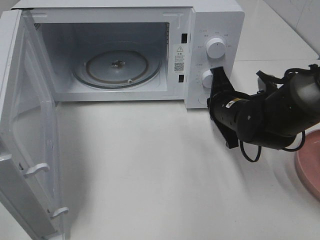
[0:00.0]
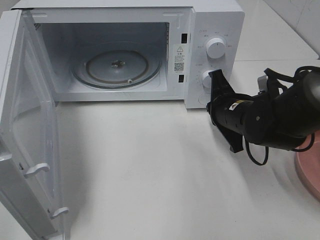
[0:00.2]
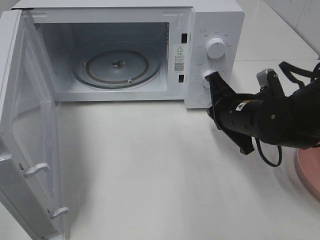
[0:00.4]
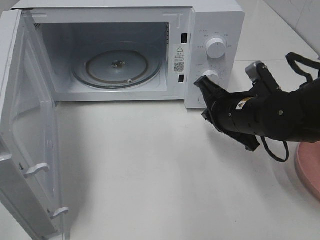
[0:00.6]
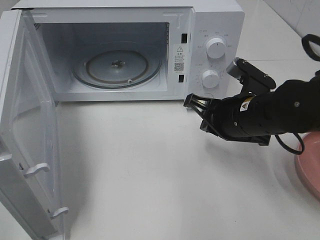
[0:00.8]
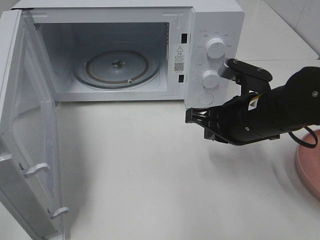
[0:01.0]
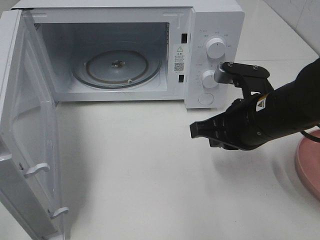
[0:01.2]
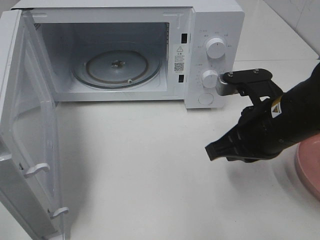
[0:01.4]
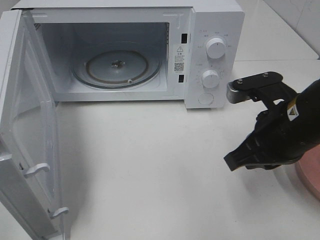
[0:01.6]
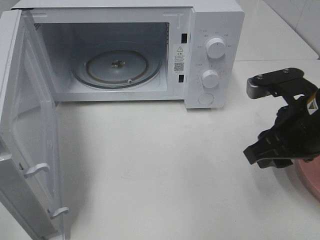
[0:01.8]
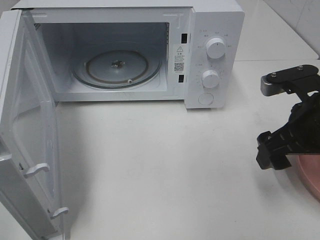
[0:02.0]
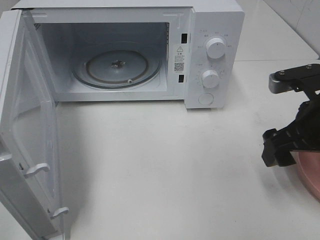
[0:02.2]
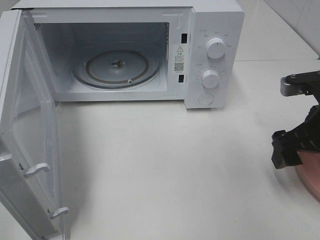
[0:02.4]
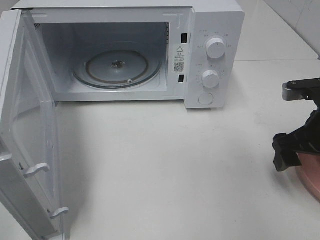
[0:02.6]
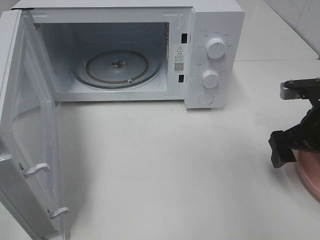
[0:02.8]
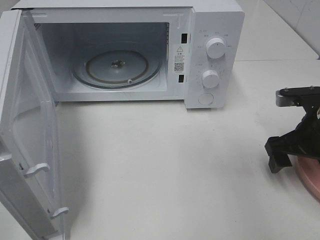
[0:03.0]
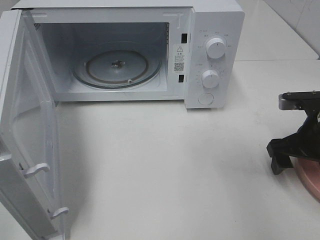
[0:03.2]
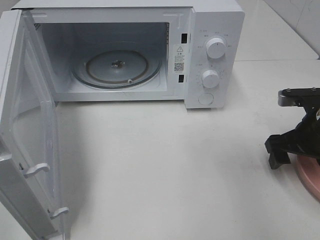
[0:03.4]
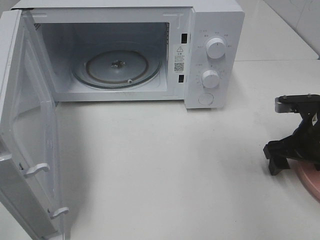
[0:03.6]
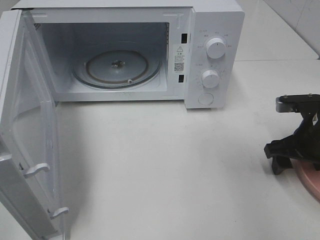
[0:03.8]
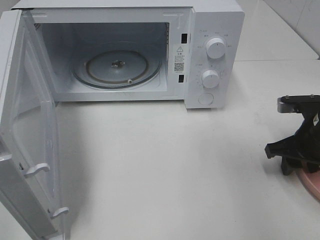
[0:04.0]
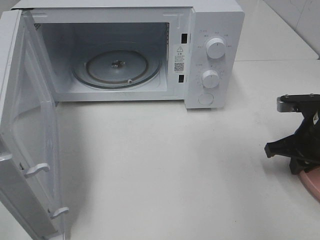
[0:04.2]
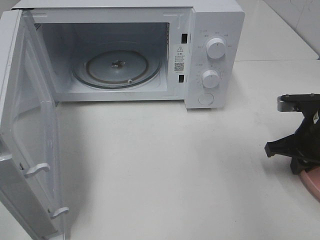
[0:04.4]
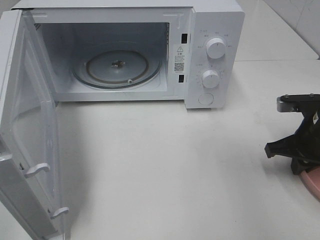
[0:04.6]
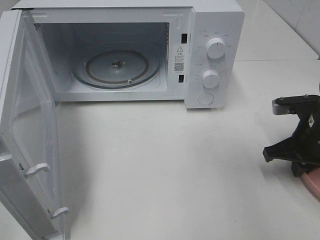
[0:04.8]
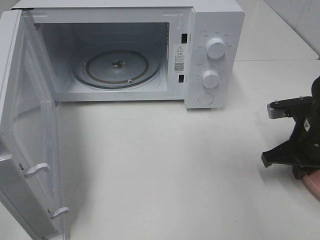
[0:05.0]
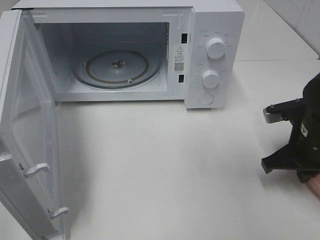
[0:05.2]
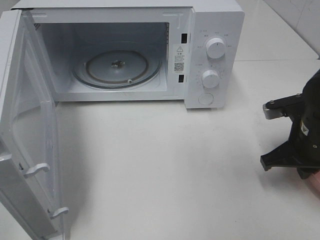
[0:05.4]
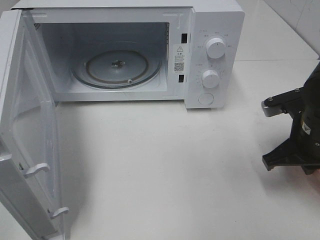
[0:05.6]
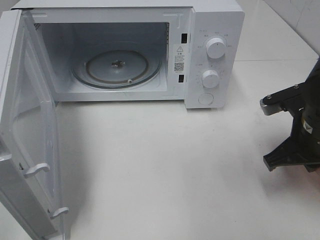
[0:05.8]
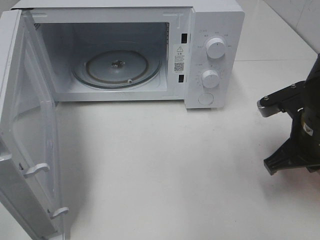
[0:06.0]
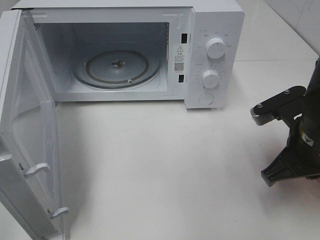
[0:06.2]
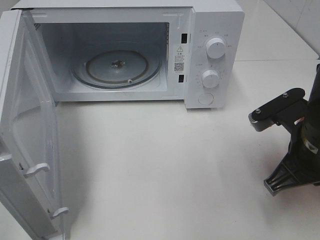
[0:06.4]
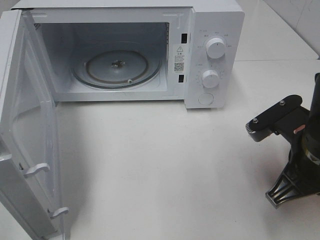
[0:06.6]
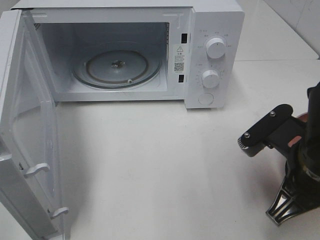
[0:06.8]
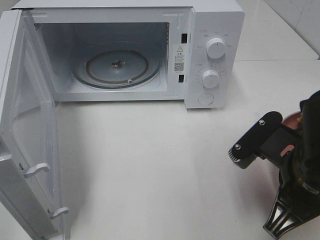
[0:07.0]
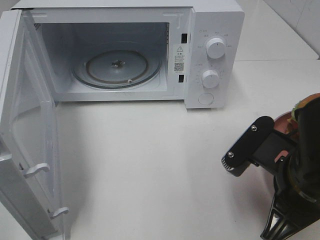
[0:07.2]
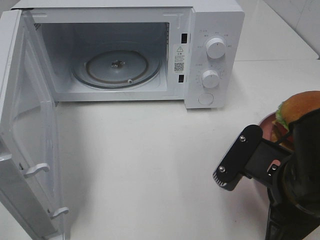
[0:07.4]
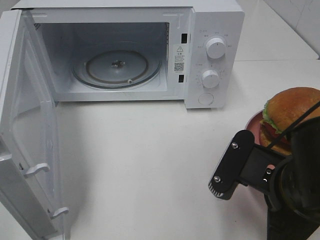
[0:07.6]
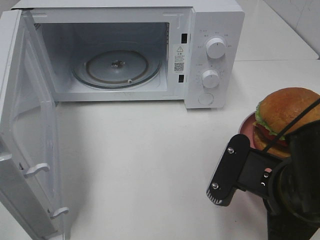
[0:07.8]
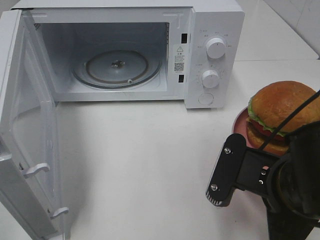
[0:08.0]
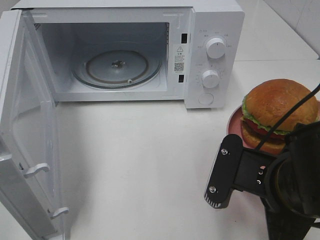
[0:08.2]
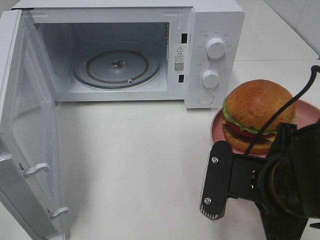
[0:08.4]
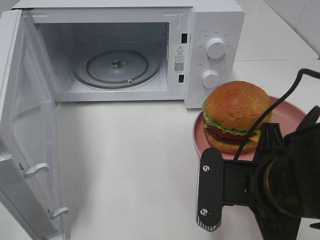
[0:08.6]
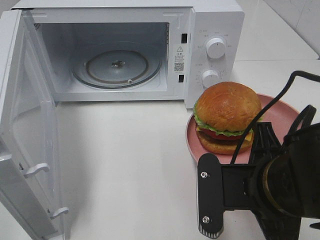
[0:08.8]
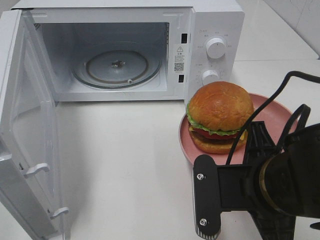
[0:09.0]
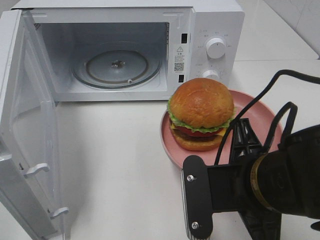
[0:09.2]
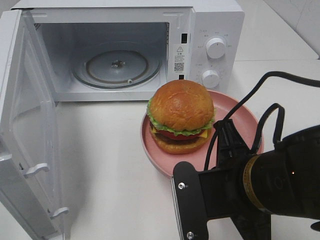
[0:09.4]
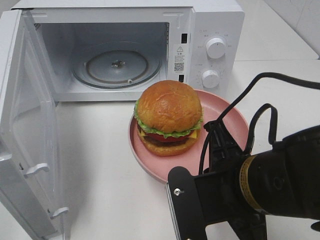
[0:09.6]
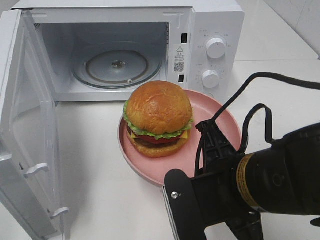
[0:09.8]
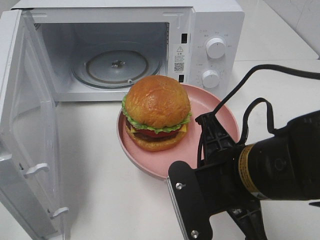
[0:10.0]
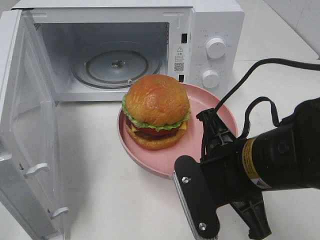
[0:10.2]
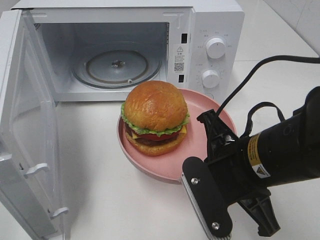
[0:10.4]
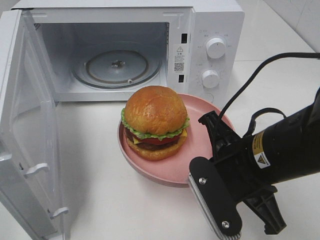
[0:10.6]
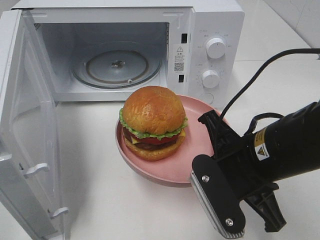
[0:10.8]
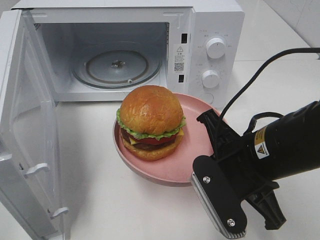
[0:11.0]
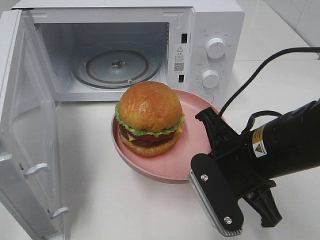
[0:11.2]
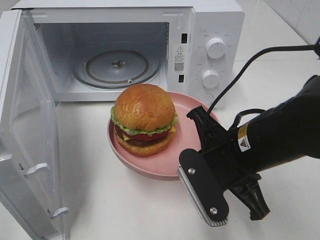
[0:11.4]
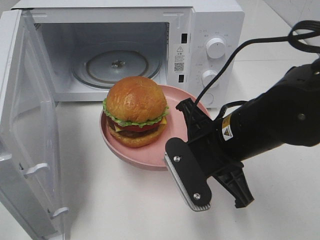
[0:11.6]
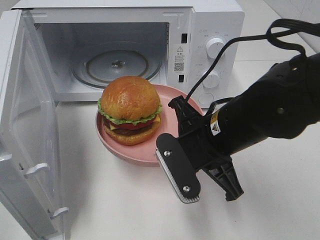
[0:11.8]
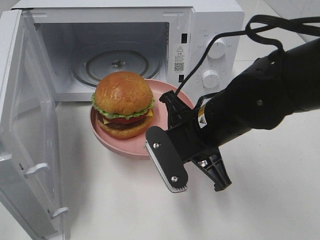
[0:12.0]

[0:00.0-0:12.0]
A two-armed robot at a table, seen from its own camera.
Task of the whole recording: Heat the burger.
Step, 0:00.0 to 0:04.4: Right hand: grab the plate with the hamburger.
0:00.0 to 0:01.6: The right gripper travels backward and upward by about 15 cm.
0:01.6 to 0:03.0: The right gripper travels to the right and downward by about 10 cm, and opens its fingers.
0:03.0 to 0:04.4: The right gripper closes.
0:04.4 to 0:06.0: The right gripper heads to the left, covering approximately 5 cm.
0:06.0 to 0:07.6: The right gripper is displaced backward and to the left by approximately 15 cm.
0:10.4 to 0:12.0: The right gripper moves forward, approximately 5 cm.

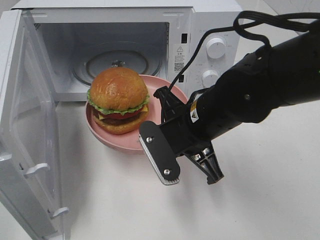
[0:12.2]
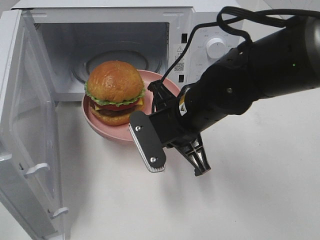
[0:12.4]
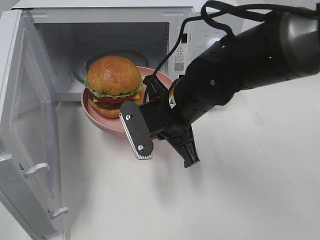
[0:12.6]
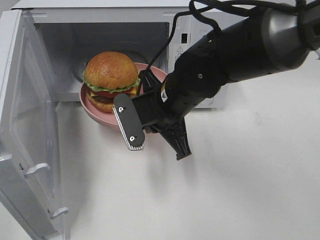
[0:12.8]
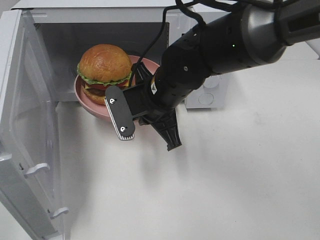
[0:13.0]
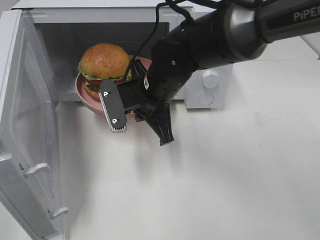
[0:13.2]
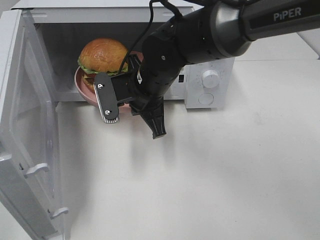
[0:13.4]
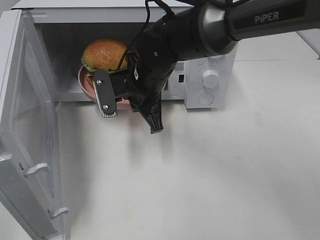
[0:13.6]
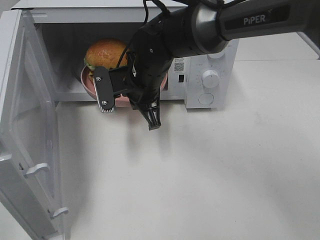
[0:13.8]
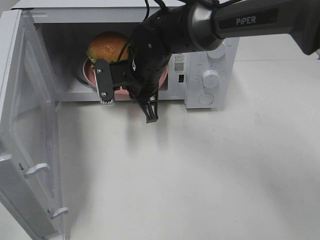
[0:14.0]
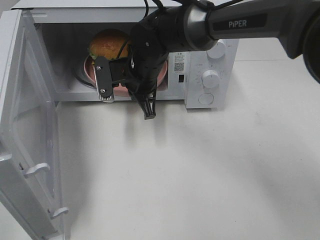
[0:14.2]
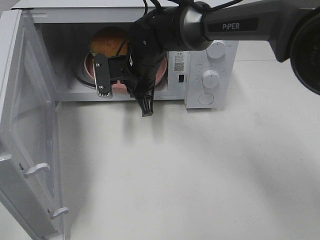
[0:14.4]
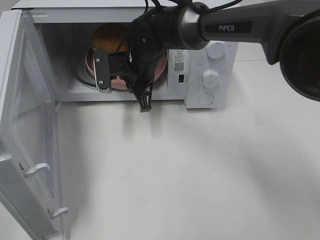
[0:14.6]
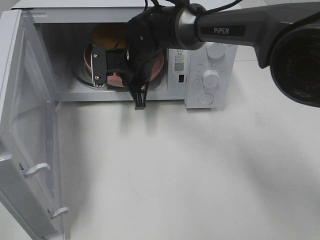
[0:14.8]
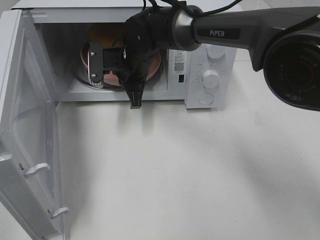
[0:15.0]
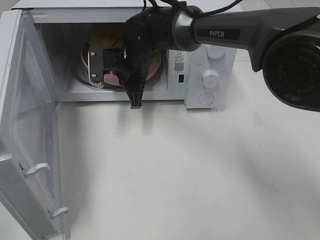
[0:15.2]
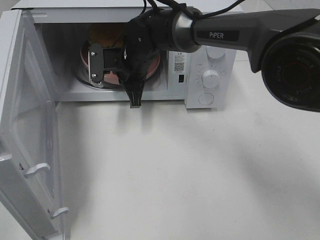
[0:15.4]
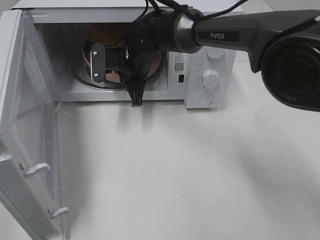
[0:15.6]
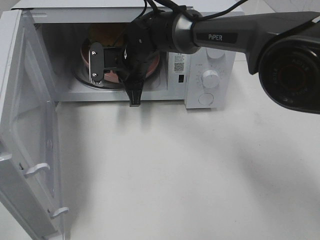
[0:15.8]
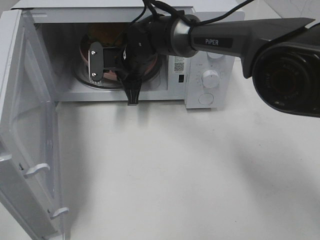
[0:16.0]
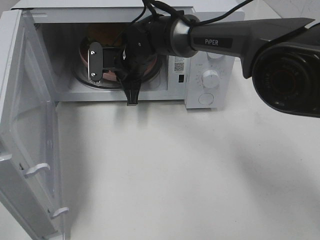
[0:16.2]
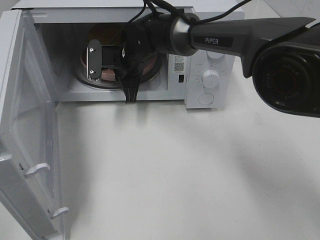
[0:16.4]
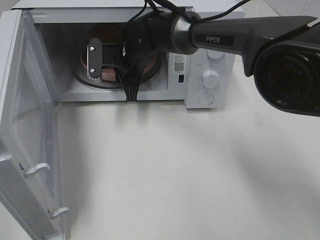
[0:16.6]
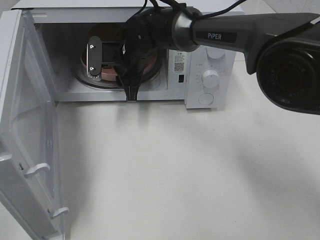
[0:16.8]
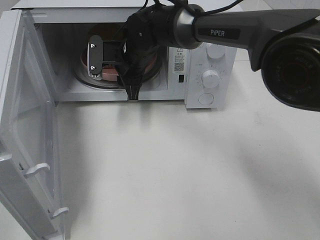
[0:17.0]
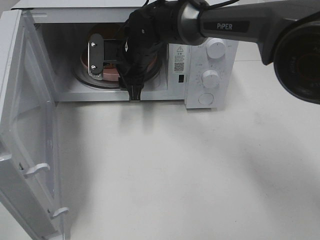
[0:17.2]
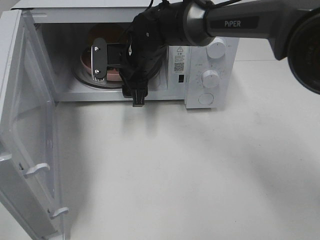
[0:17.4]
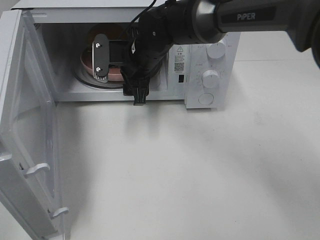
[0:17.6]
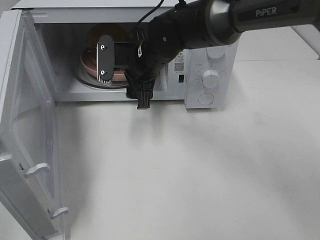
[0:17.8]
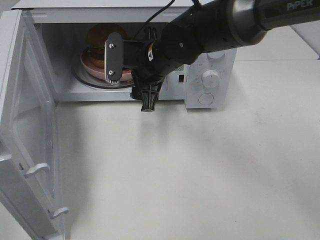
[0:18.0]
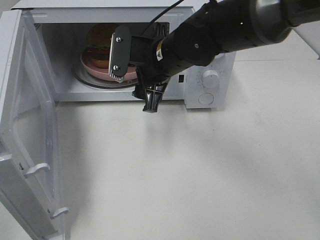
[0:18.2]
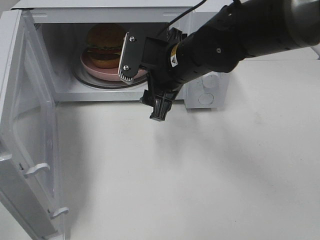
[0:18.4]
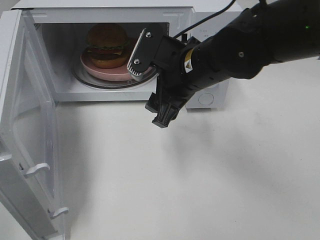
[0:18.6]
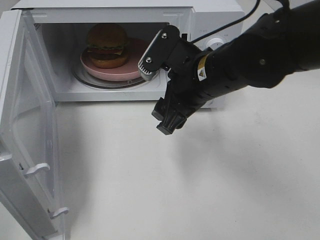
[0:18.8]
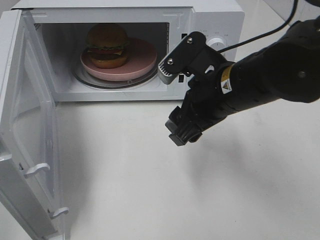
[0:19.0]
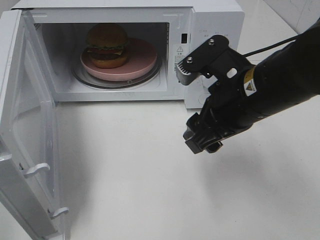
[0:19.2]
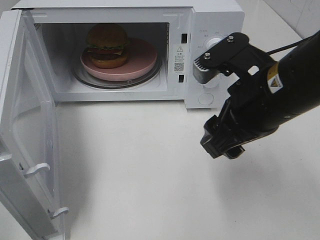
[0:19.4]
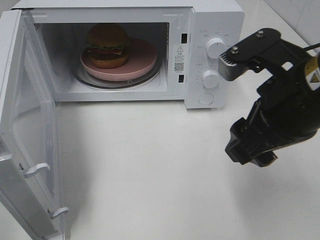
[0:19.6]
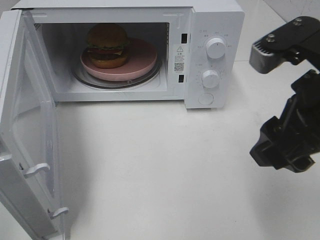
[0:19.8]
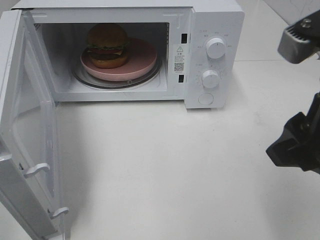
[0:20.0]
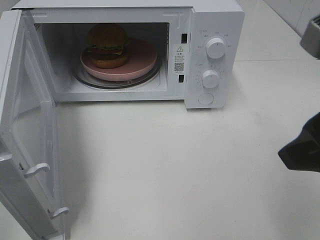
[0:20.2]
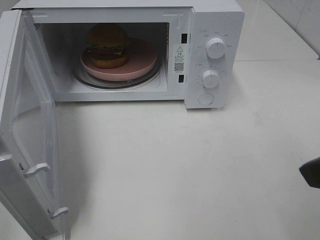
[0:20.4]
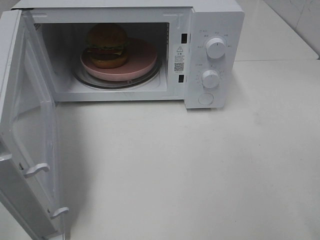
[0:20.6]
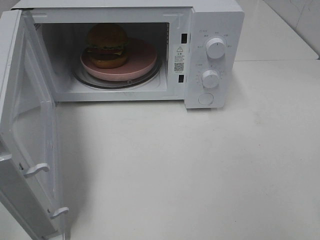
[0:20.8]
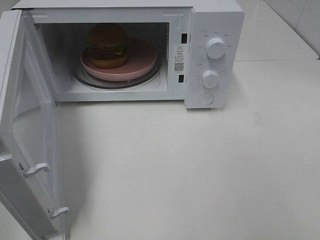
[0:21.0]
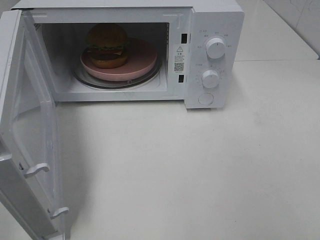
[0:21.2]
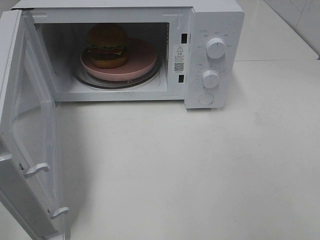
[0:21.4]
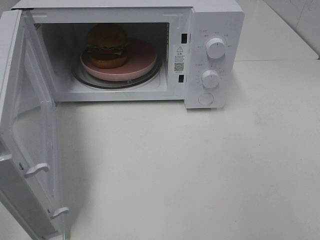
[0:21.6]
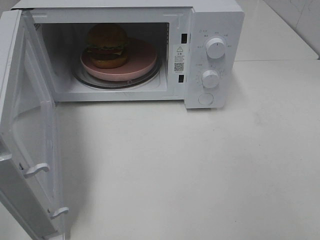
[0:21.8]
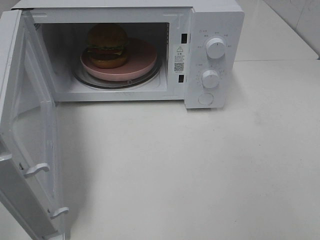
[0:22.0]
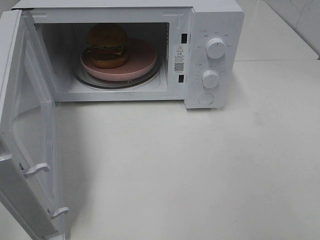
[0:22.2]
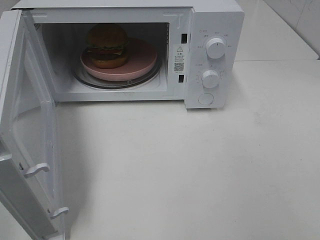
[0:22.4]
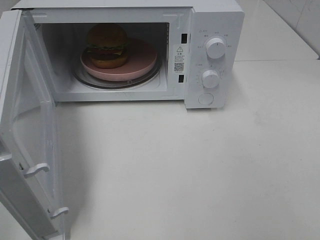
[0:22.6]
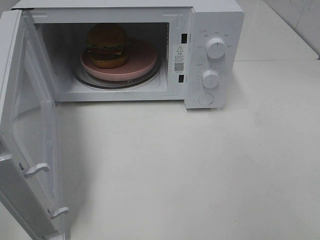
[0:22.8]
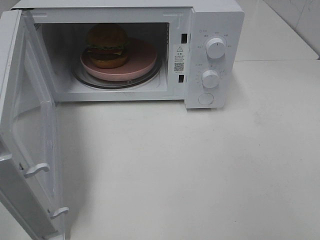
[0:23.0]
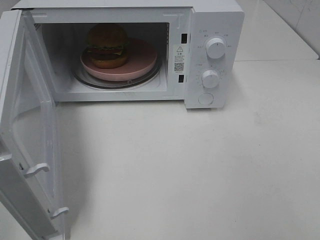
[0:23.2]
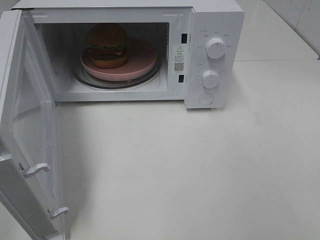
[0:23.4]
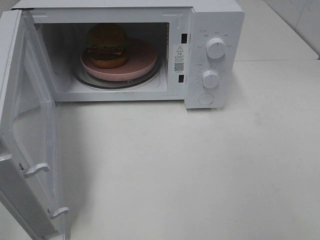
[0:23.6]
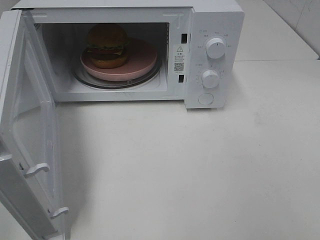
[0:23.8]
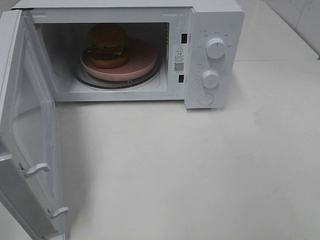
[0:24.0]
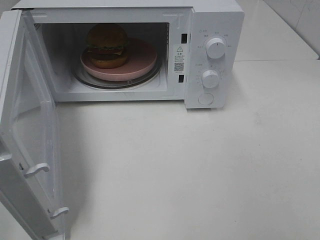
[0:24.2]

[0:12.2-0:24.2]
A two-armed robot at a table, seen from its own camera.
Task of the whole recording: Heat the burger.
Step, 0:12.2 to 0:16.6: Right hand: place the plate in the microwave.
0:12.2 to 0:13.8: The right gripper travels forward and to the left by roughly 15 cm.
0:13.8 to 0:15.2: The right gripper is displaced forward by roughly 5 cm.
0:15.2 to 0:16.6: The right gripper opens.
0:16.6 to 0:18.2: The right gripper travels backward, to the right and upward by approximately 15 cm, and opens its fingers.
0:18.2 to 0:19.8: The right gripper moves backward, to the right and upward, approximately 25 cm.
0:19.8 to 0:21.2: The right gripper goes about 20 cm backward and to the right.
0:22.6 to 0:24.2: The two grippers keep their place.
